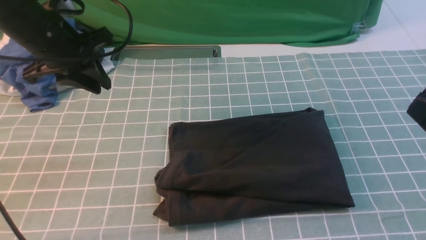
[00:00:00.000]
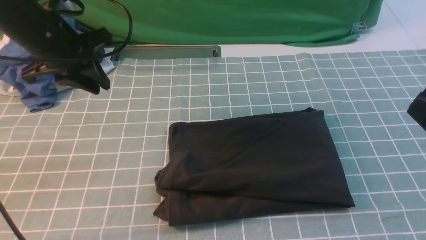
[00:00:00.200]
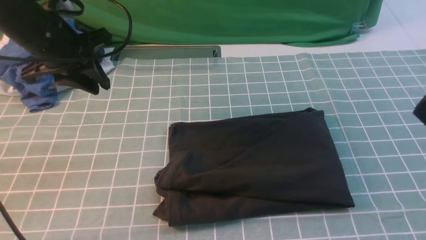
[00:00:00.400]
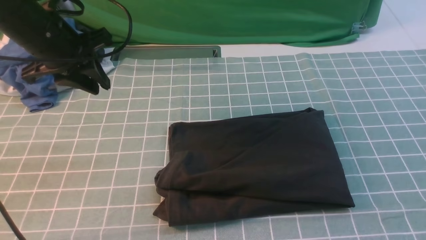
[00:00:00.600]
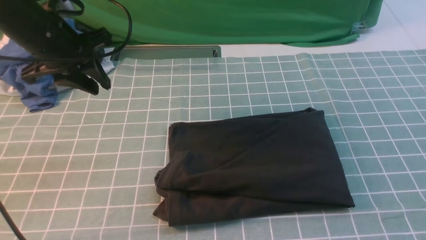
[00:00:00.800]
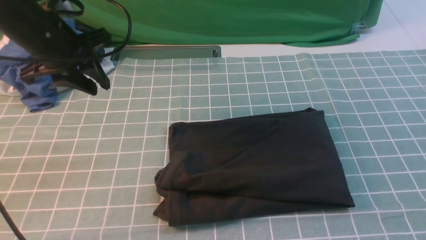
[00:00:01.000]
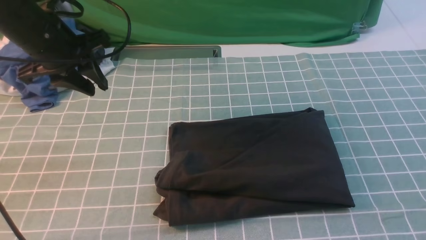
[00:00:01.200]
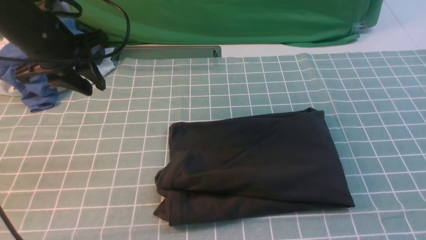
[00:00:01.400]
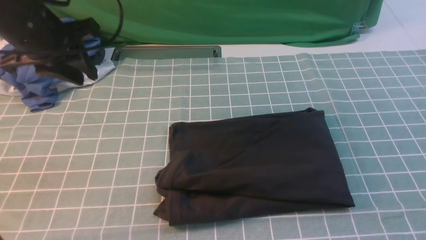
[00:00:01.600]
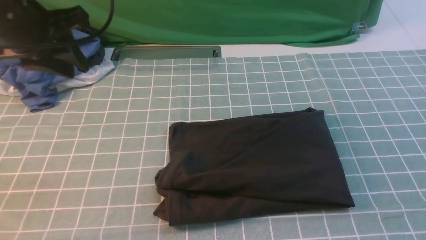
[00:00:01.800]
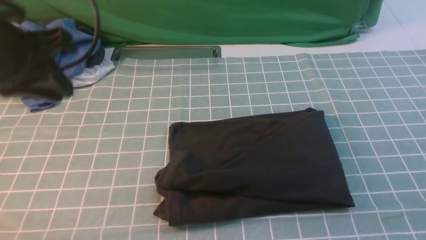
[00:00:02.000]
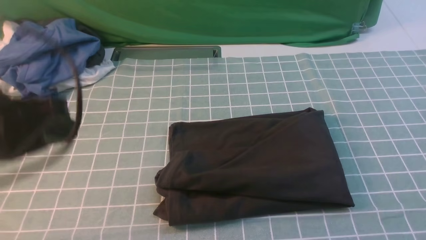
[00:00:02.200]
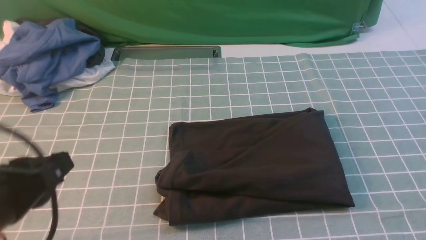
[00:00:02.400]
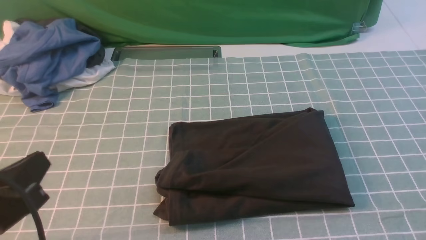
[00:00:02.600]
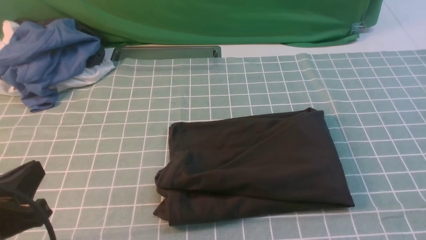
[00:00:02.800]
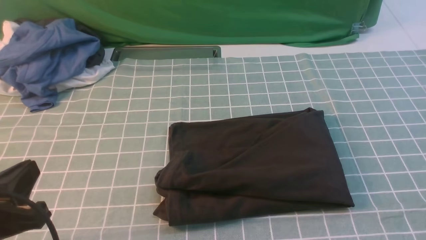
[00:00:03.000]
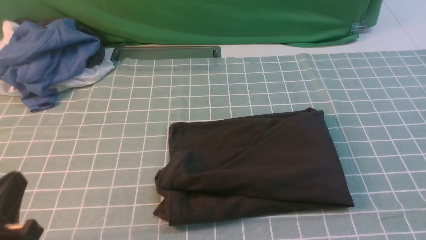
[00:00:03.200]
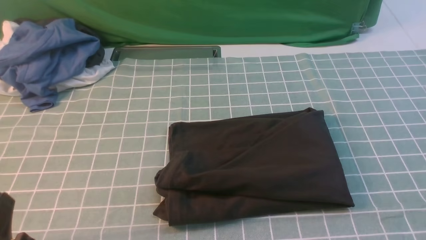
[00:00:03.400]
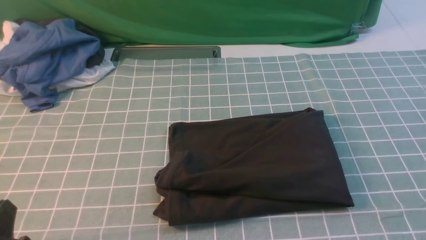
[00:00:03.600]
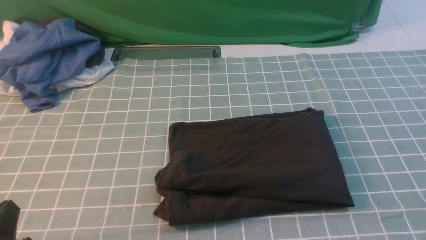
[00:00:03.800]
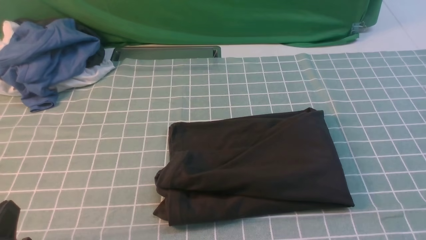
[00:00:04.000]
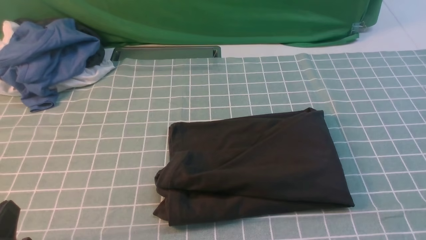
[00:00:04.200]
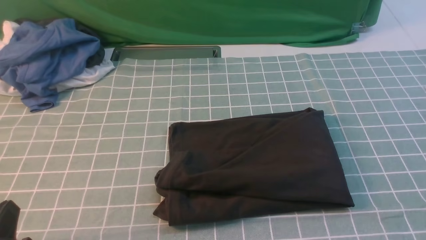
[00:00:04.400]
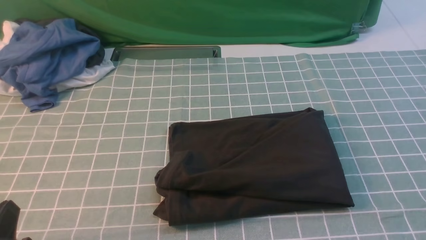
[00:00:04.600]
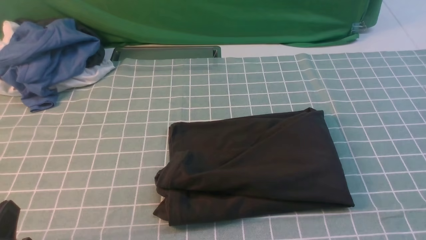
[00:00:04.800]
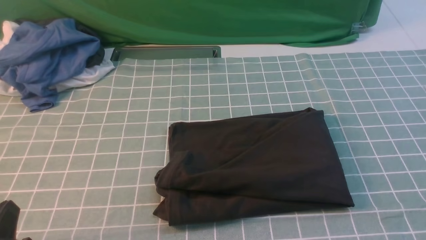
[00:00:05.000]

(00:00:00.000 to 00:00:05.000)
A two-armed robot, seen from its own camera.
00:00:01.600 - 00:00:03.400: The left gripper heads backward and downward, covering about 30 cm.
00:00:03.400 - 00:00:05.000: Both grippers stay put.
